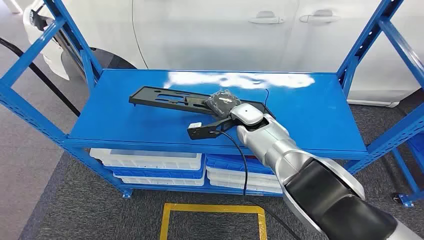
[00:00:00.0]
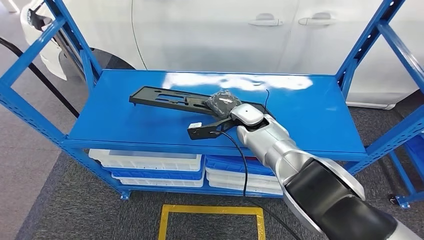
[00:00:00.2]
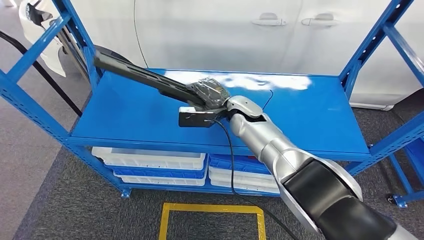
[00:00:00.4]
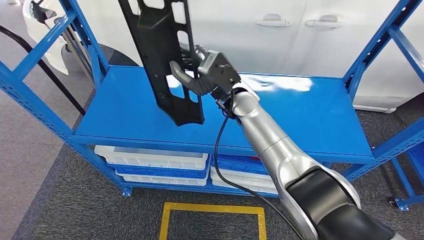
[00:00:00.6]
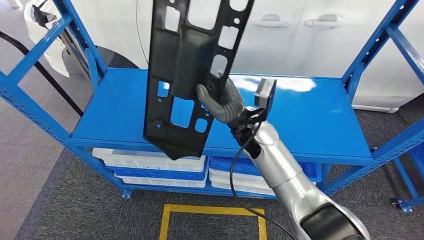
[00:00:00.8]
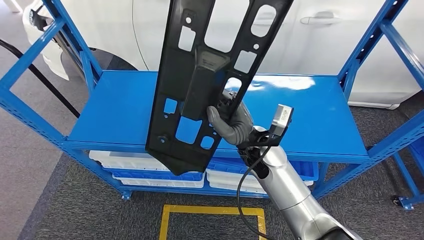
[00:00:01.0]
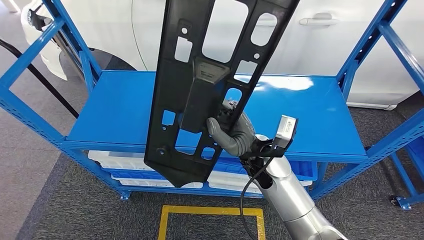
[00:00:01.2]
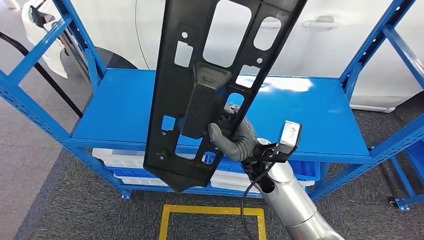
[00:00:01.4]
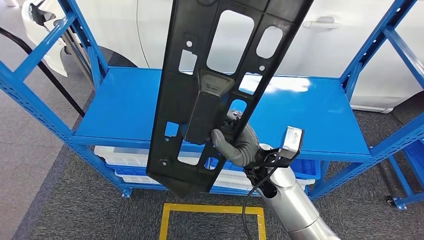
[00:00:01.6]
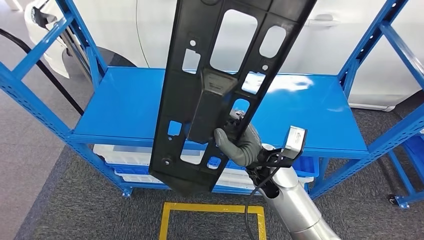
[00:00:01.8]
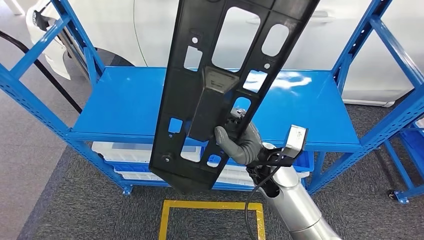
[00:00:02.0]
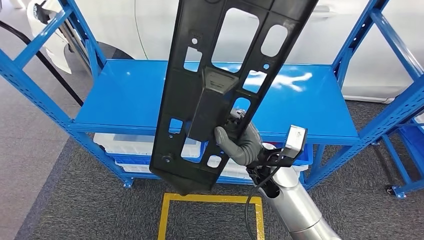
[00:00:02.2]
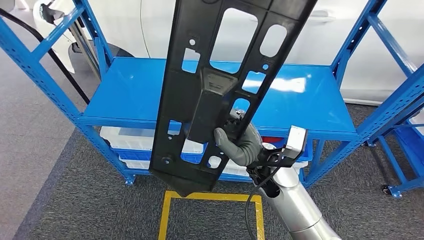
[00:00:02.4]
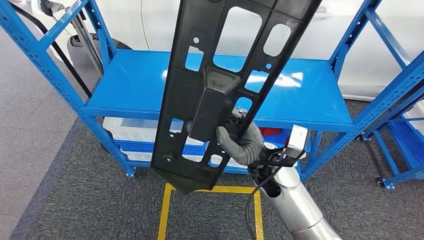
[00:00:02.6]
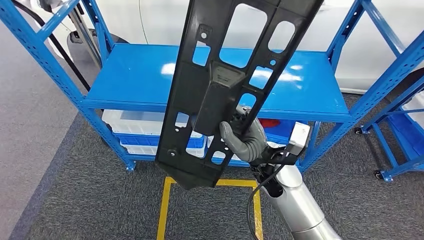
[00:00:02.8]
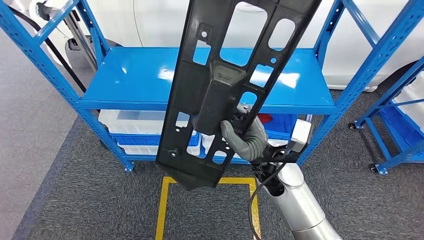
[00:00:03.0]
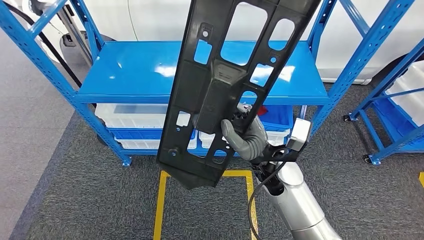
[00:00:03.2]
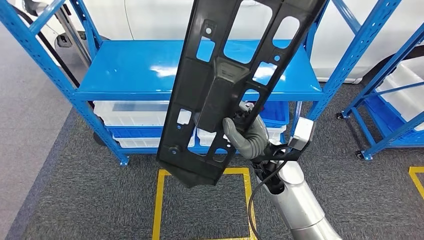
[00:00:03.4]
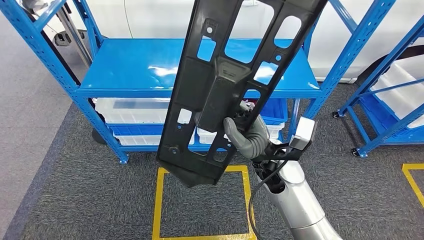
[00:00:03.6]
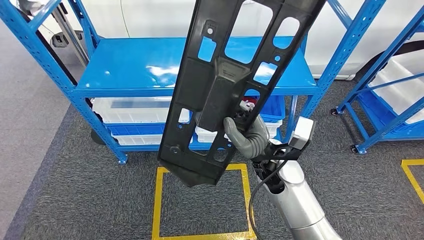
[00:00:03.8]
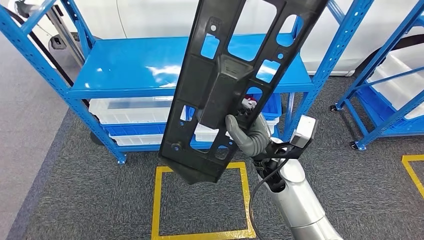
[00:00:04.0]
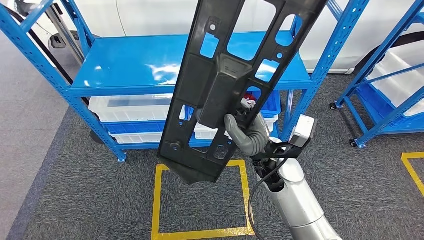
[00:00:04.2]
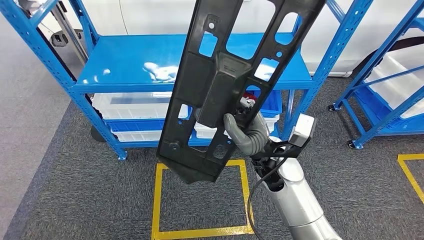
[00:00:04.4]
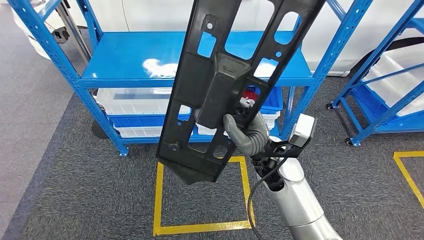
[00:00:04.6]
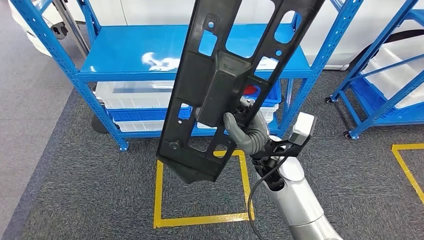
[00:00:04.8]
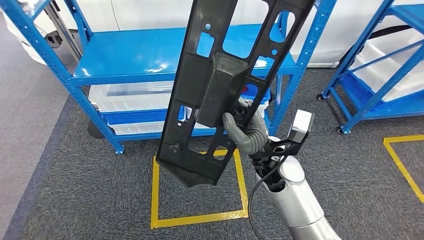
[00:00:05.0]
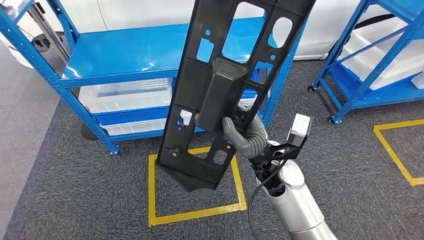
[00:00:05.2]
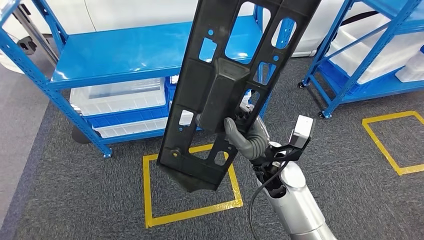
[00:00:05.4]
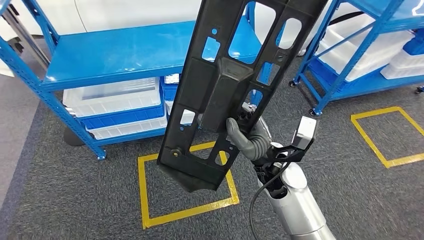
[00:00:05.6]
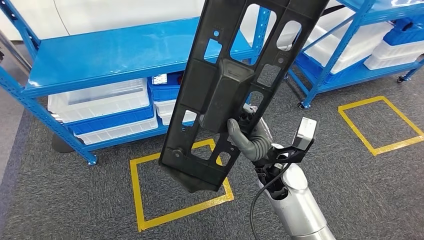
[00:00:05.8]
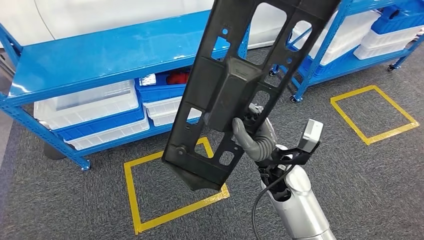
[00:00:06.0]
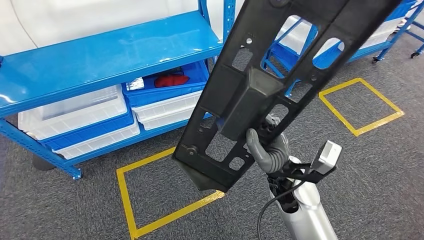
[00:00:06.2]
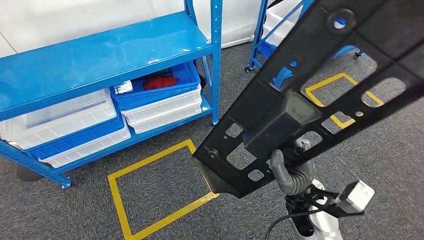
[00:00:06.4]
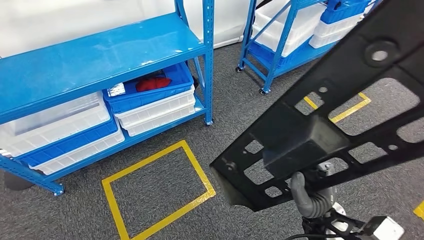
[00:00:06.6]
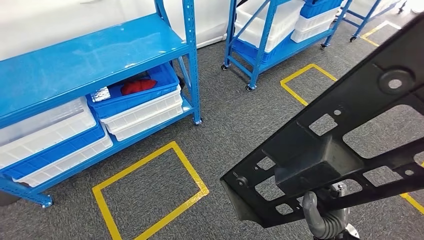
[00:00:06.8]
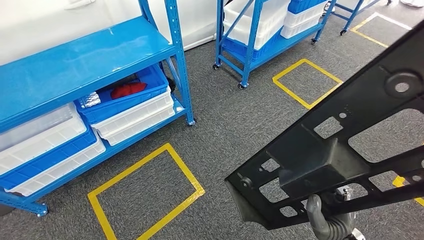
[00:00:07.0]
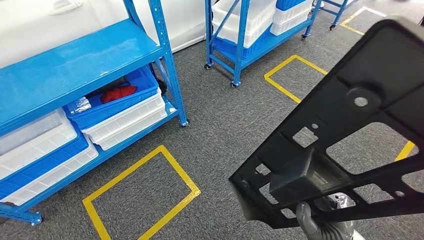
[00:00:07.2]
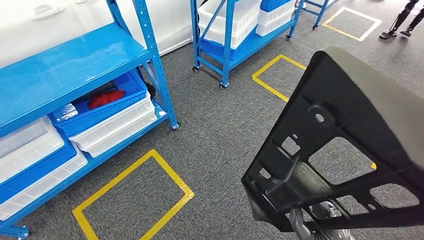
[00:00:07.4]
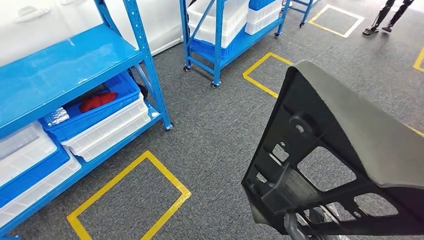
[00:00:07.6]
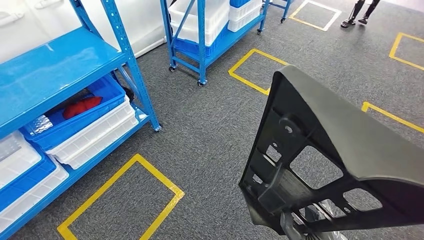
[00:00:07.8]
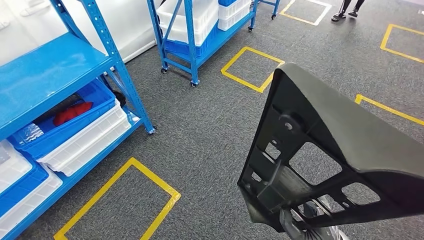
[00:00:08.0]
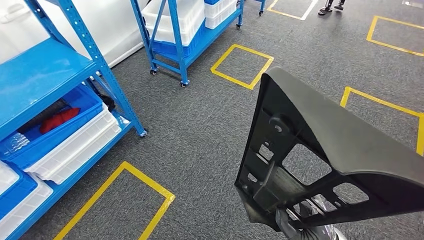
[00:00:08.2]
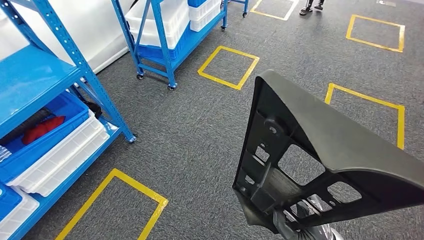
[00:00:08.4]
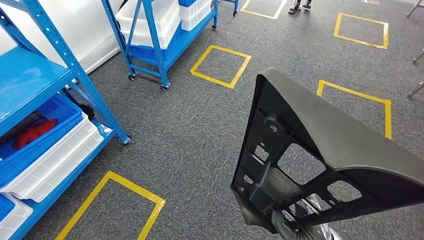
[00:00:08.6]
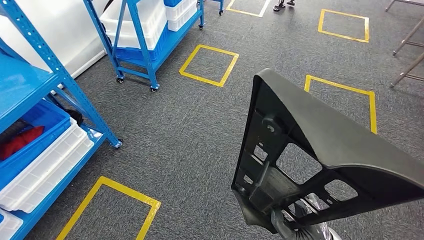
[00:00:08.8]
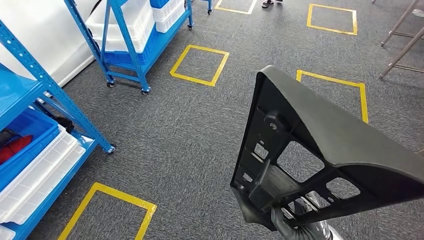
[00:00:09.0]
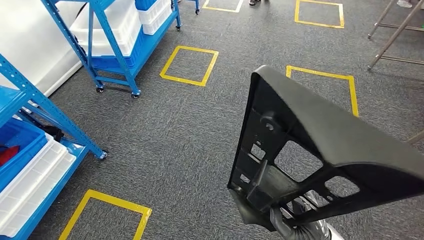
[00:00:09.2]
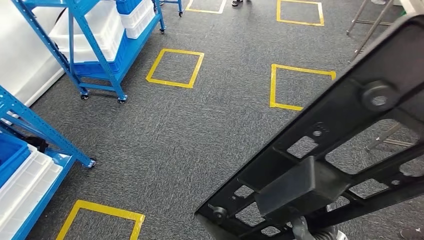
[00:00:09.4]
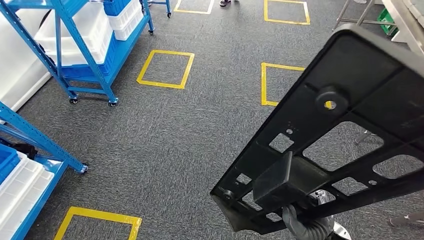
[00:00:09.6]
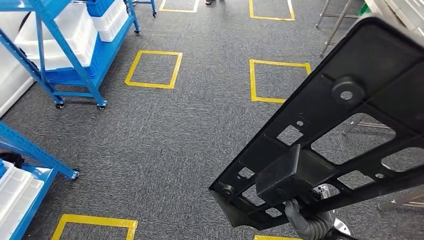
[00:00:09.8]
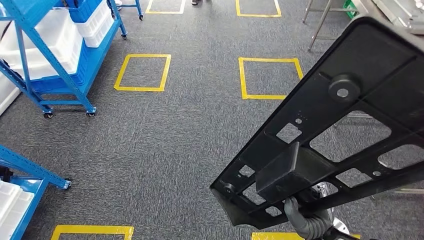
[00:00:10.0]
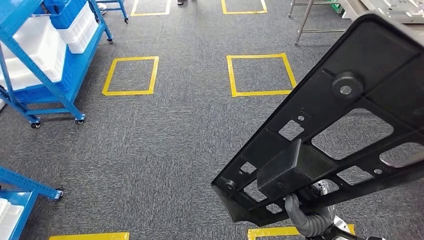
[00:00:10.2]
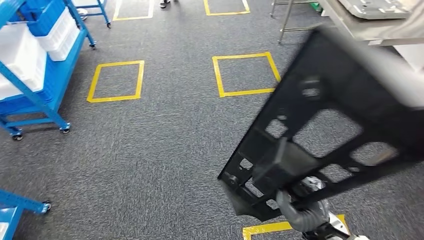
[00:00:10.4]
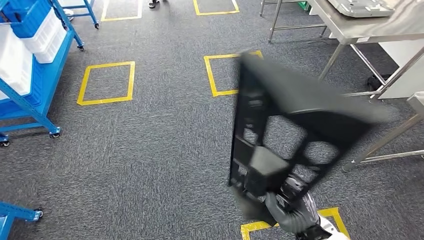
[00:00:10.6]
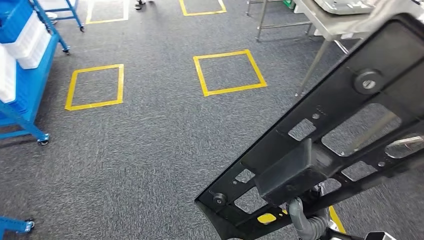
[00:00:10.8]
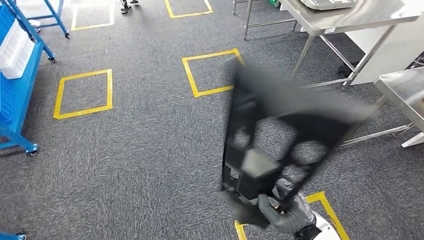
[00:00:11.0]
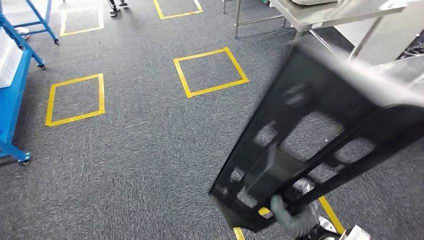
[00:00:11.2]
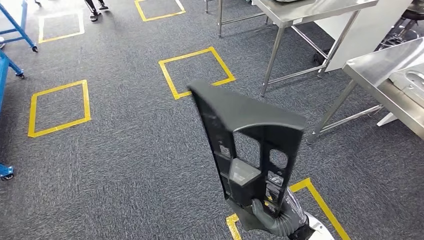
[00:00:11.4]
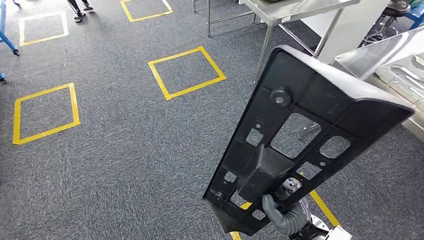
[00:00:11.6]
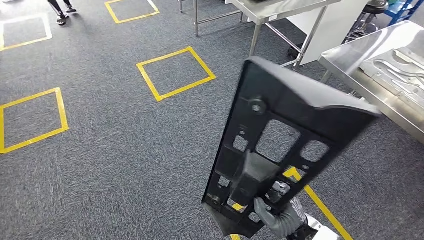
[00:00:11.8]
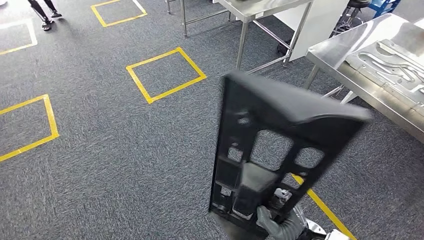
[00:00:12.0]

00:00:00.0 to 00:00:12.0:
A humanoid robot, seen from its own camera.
Step, 00:00:00.0 to 00:00:01.0: Pick up the large material from the shelf.

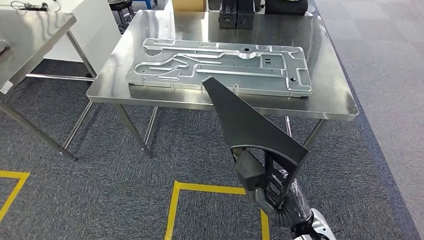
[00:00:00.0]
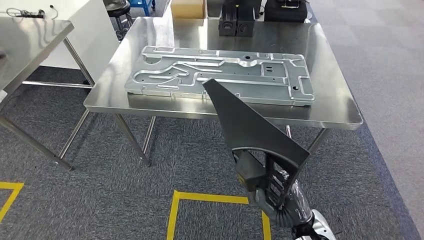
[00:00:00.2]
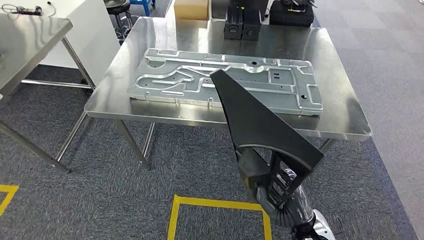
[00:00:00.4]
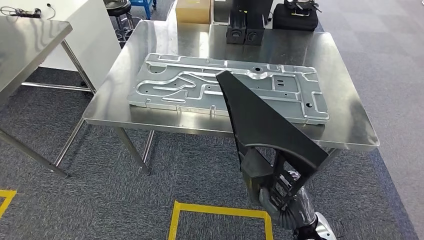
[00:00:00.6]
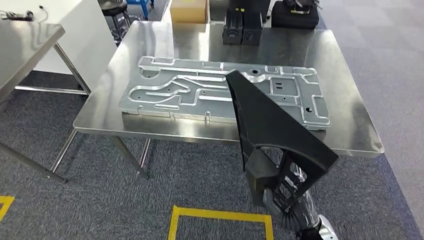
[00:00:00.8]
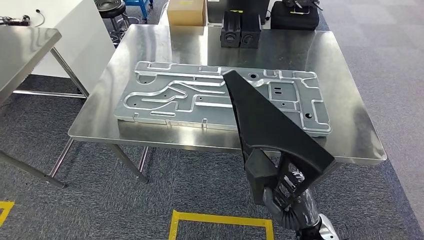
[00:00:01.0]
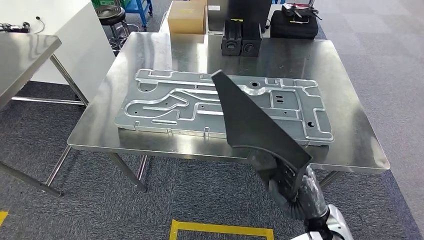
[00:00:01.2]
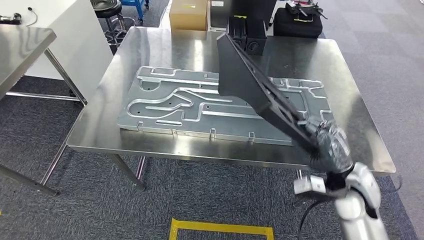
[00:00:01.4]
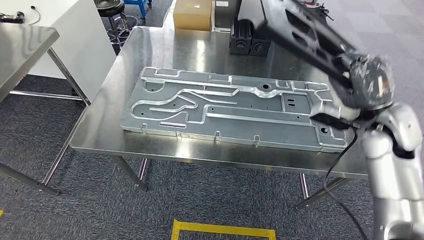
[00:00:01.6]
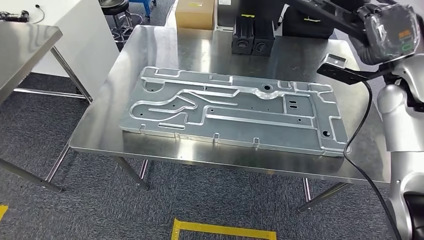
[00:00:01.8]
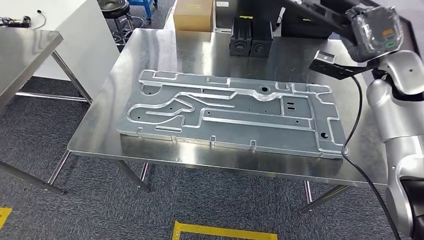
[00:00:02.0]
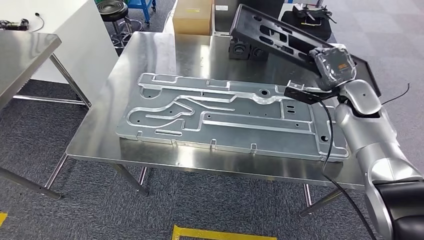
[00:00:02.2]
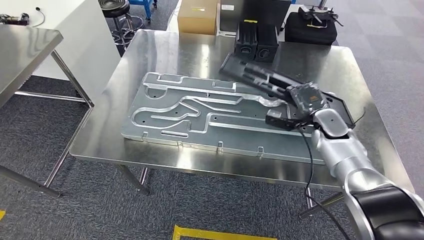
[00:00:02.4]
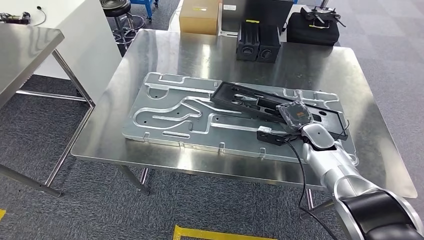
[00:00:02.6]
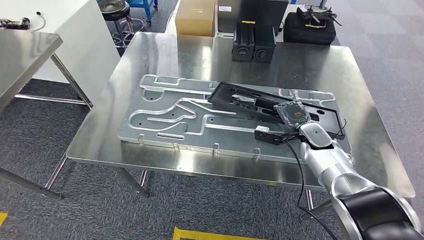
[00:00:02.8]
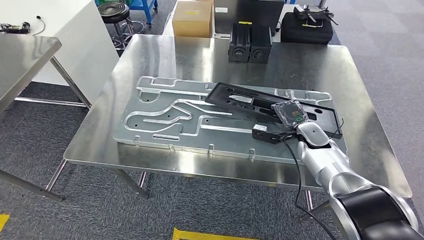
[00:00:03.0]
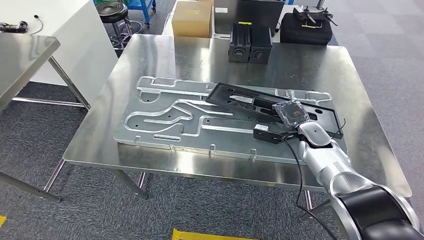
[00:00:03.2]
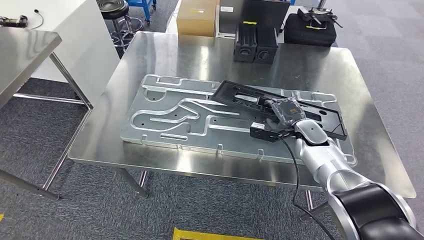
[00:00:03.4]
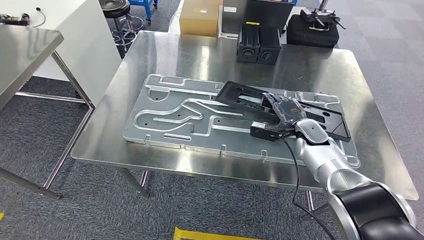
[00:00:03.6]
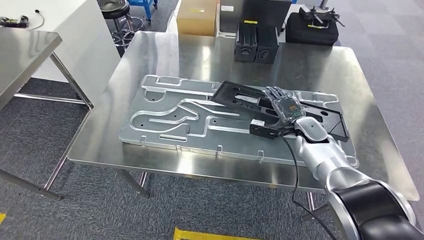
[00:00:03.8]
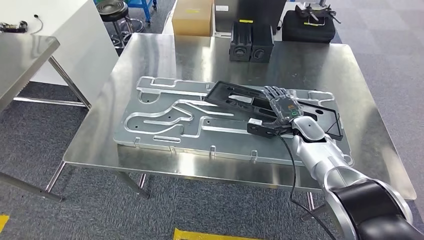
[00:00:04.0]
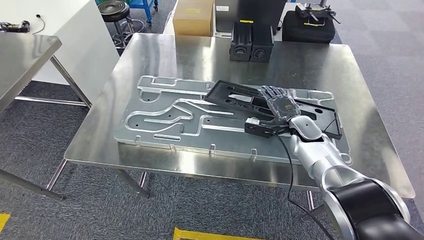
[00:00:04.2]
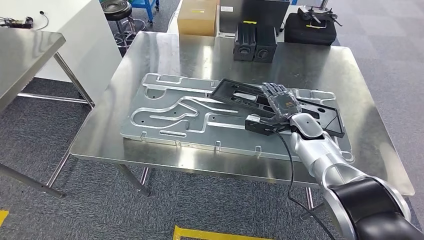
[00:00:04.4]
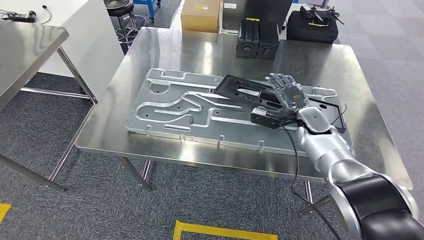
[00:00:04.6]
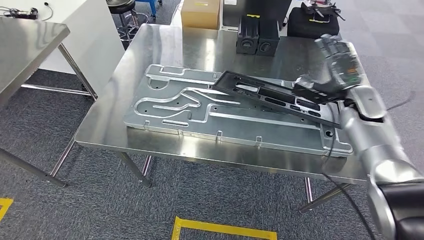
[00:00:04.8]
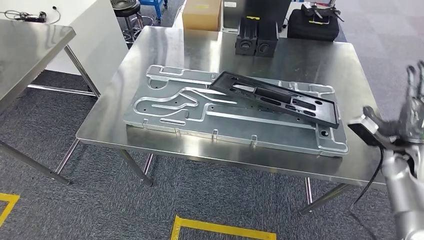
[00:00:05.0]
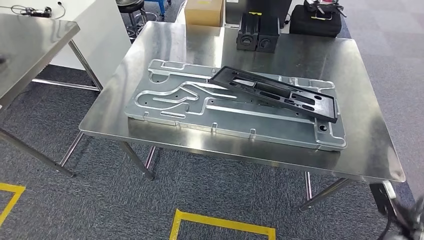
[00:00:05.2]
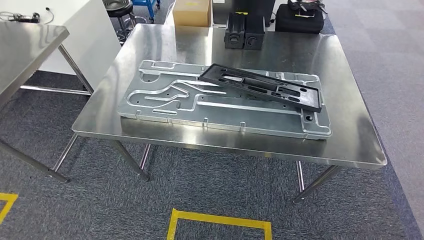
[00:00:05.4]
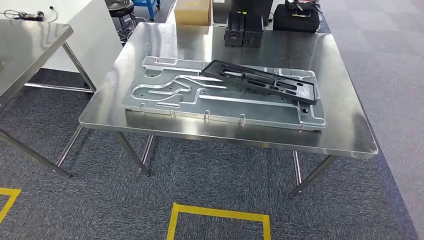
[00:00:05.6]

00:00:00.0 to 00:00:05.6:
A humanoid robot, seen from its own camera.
Step, 00:00:01.8 to 00:00:04.0: Insert the large material into the corresponding hole on the workbench.
00:00:02.8 to 00:00:04.2: The hands move only a little.
